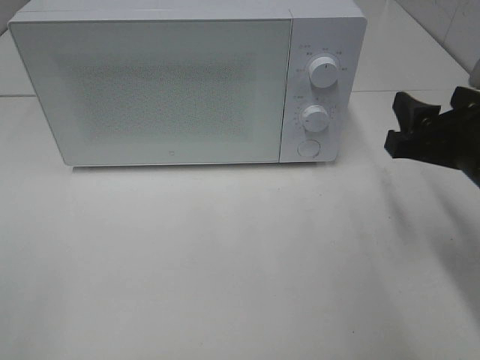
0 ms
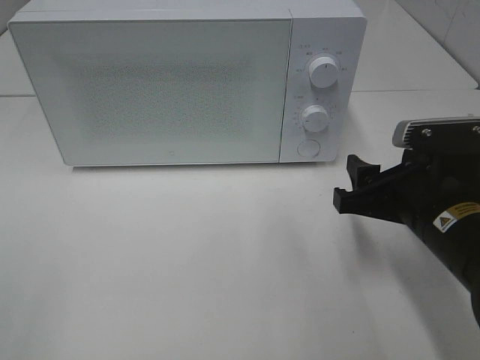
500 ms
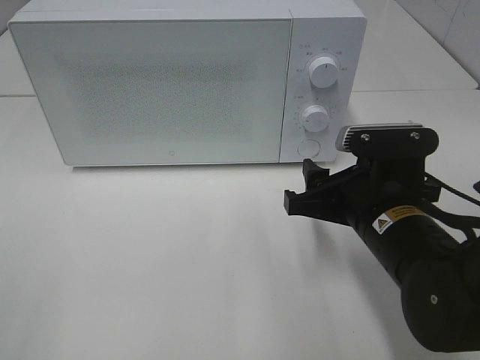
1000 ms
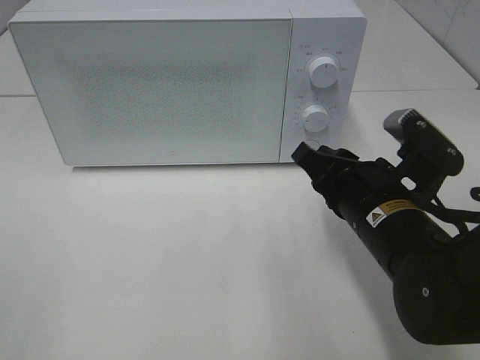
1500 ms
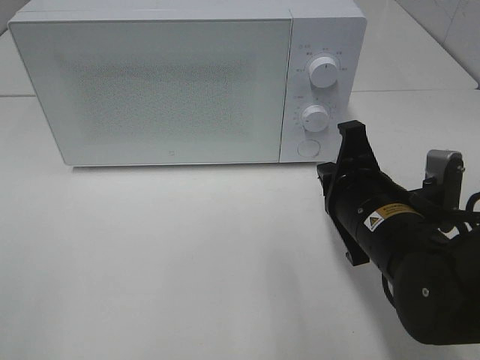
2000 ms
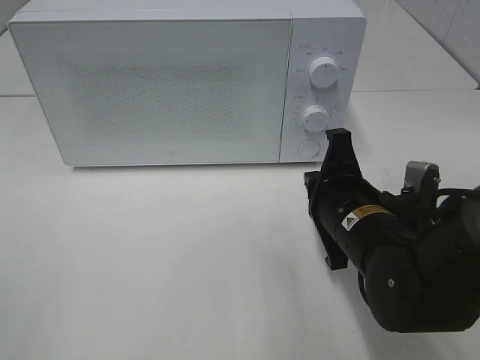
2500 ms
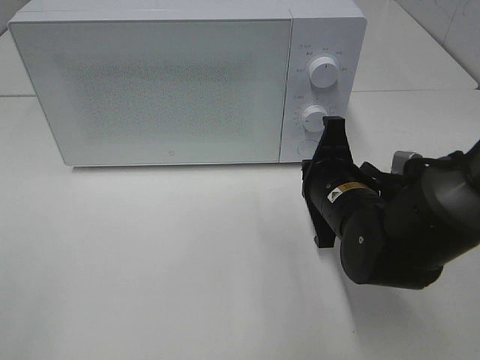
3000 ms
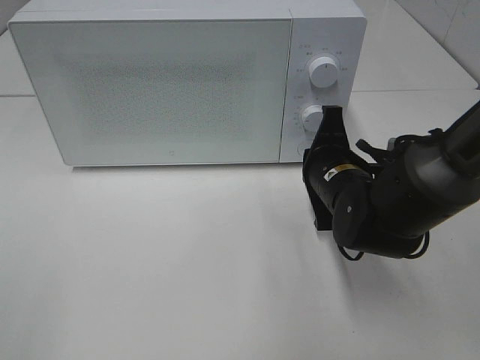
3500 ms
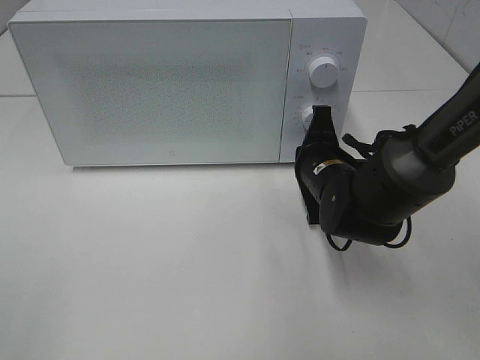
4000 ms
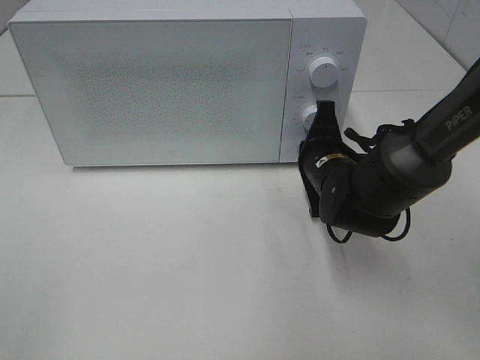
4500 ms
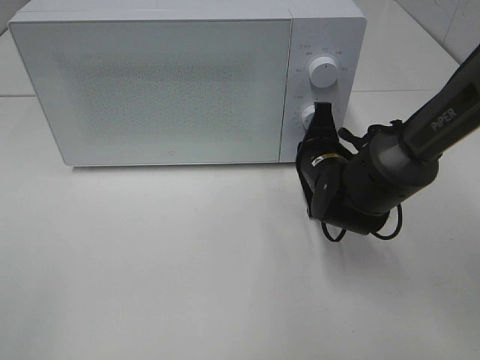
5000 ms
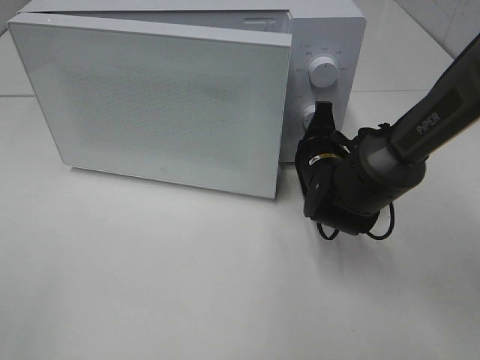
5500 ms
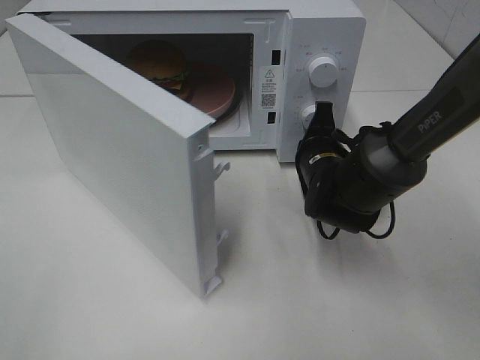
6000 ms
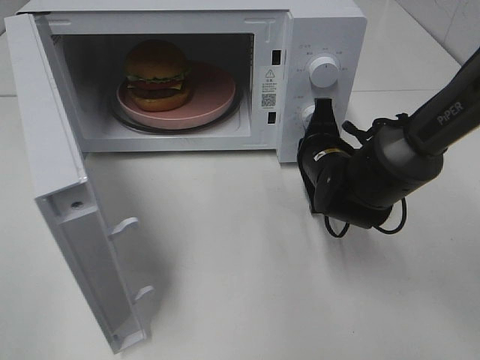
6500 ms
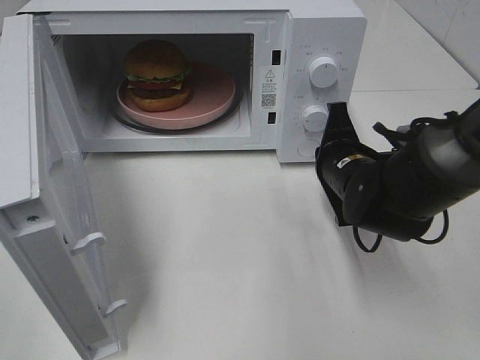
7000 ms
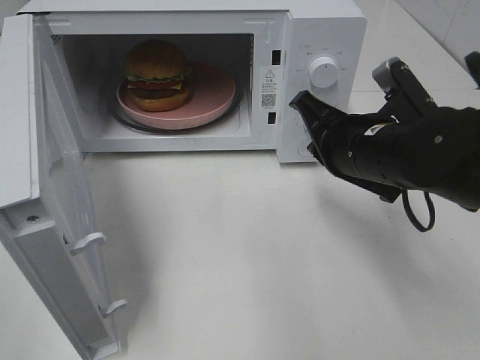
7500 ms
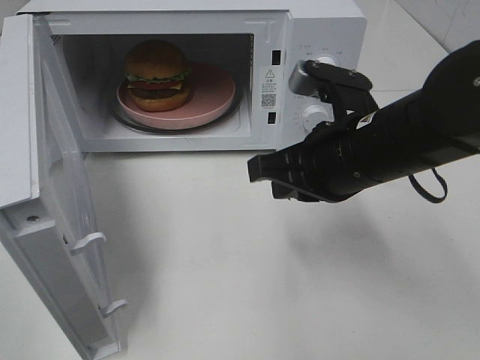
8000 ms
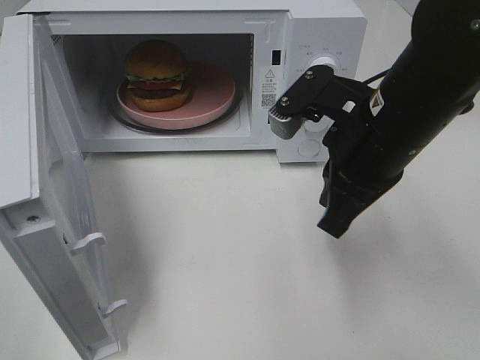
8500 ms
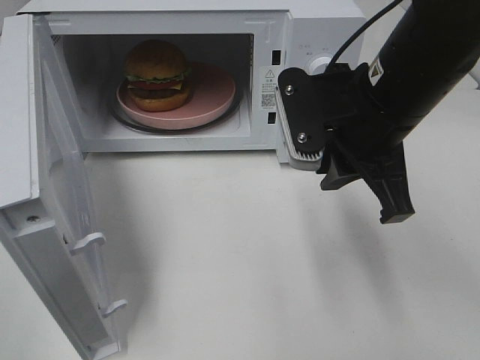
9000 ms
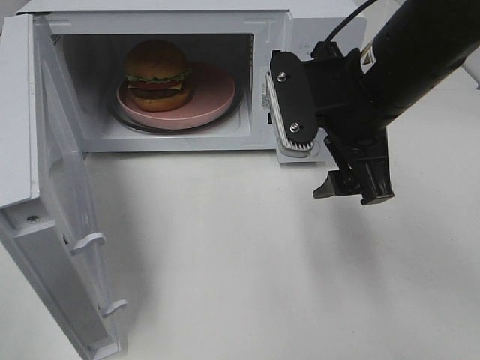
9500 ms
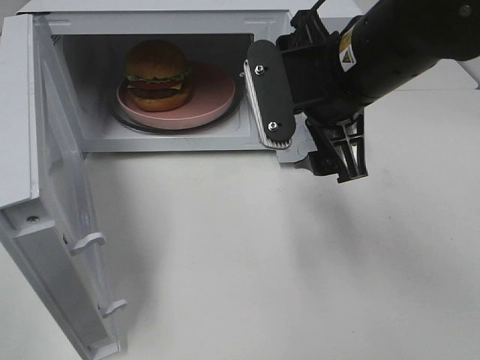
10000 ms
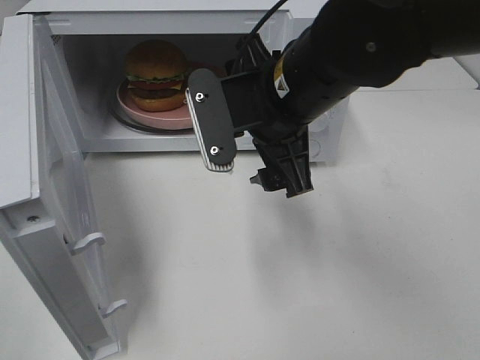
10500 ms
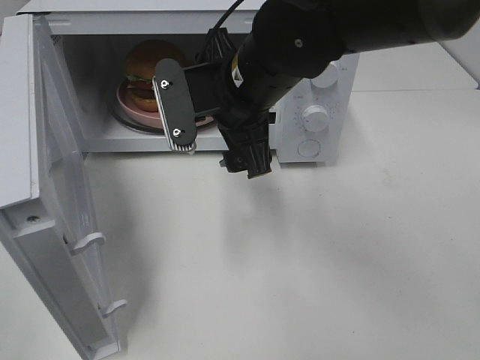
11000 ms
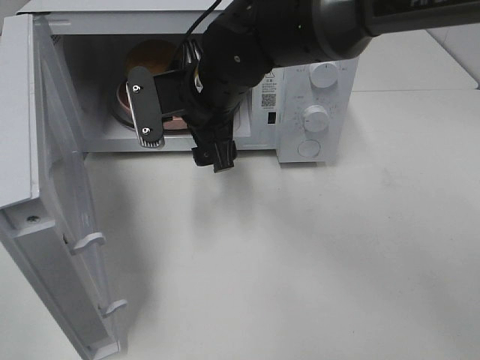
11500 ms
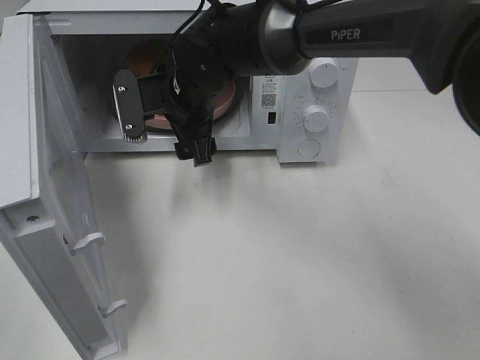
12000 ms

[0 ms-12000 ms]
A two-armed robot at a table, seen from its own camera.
Task of the whole recording: Heat the burger.
Step, 0 ms to 6500 ms: Right hand: press the switch.
0 ms to 2000 ms: The right gripper goes some 10 cm to the left and downward, and closes its fingers.
2000 ms to 4000 ms: The right gripper travels forward by some 10 cm.
6000 ms to 8000 ms: The right gripper shifts roughly 15 cm upward and backward.
8000 ms to 10000 ms: The right gripper is displaced upward by approximately 5 cm, and opens.
10000 ms to 12000 ms: The right gripper is displaced to the left, forward and downward by approximately 20 cm.

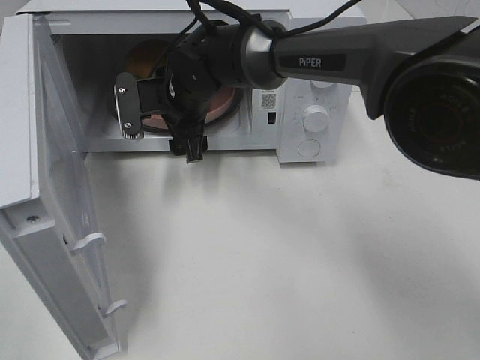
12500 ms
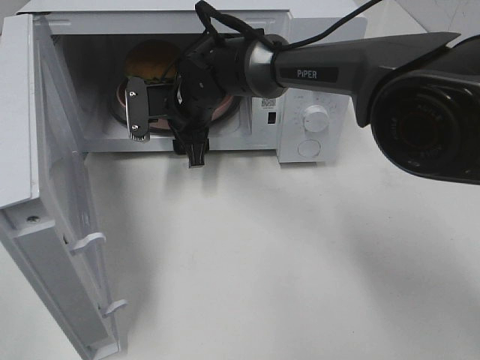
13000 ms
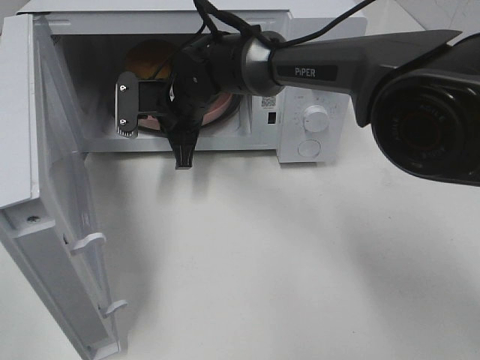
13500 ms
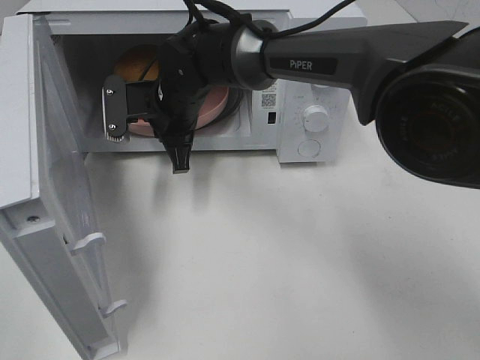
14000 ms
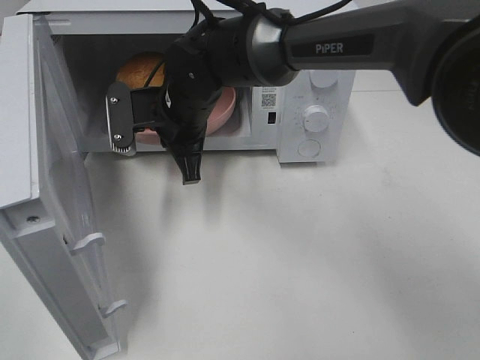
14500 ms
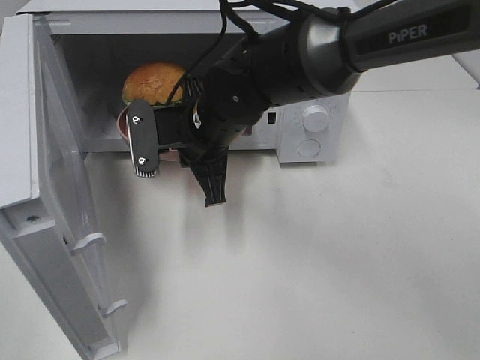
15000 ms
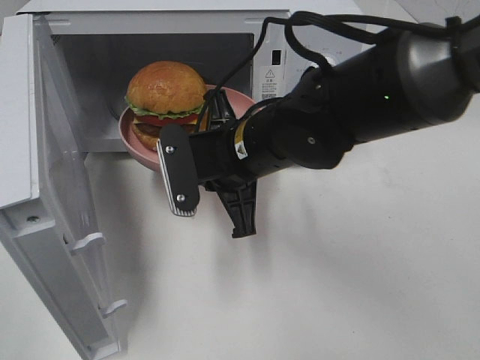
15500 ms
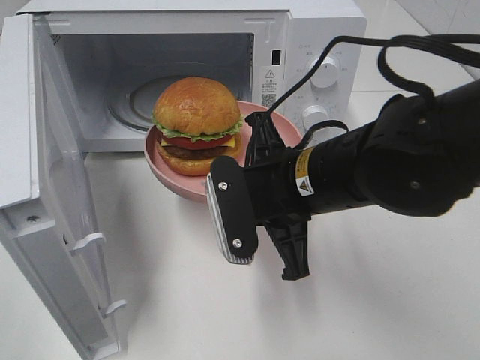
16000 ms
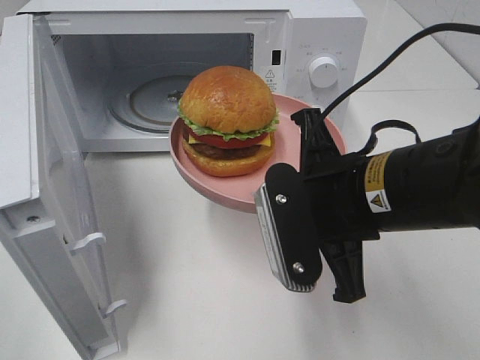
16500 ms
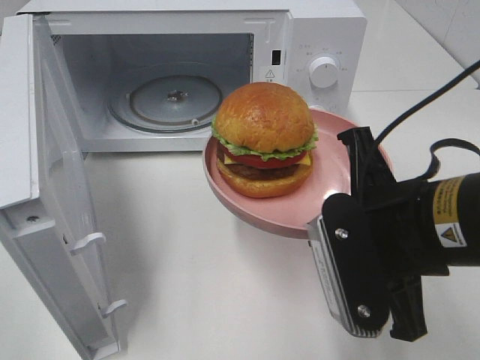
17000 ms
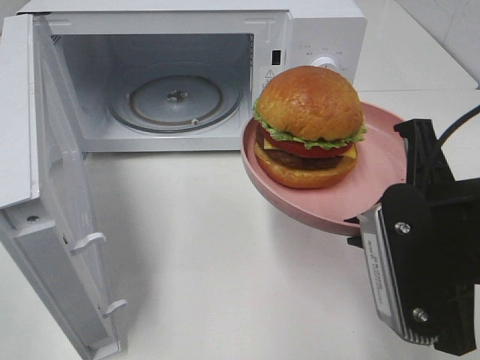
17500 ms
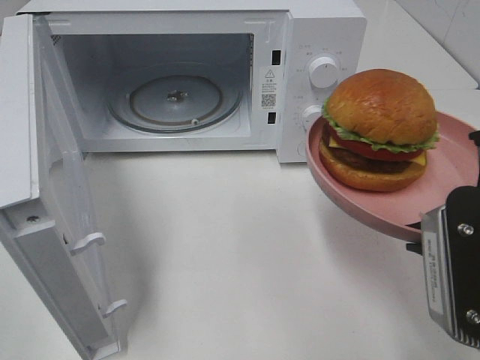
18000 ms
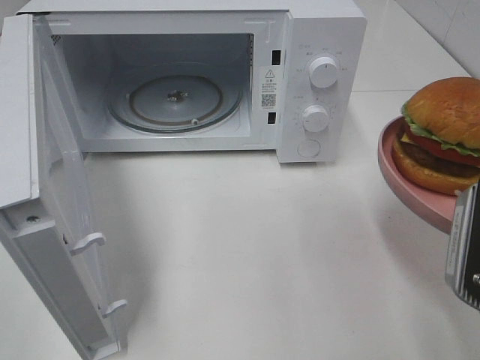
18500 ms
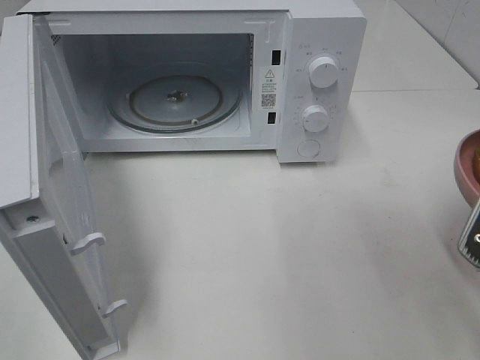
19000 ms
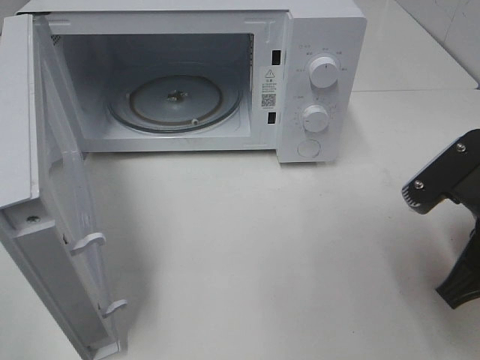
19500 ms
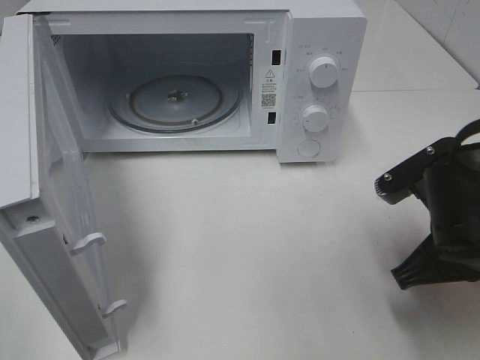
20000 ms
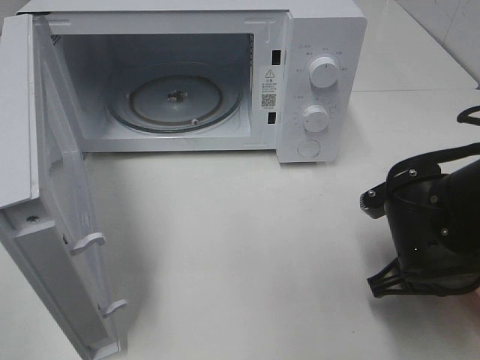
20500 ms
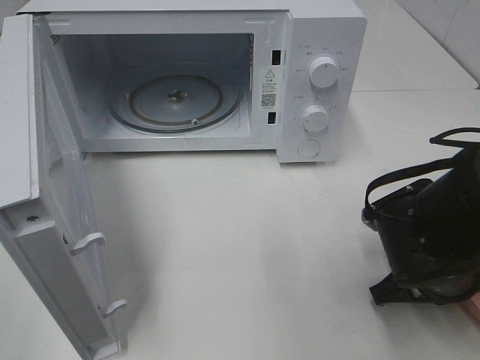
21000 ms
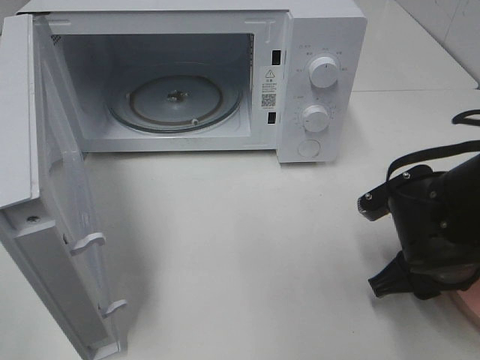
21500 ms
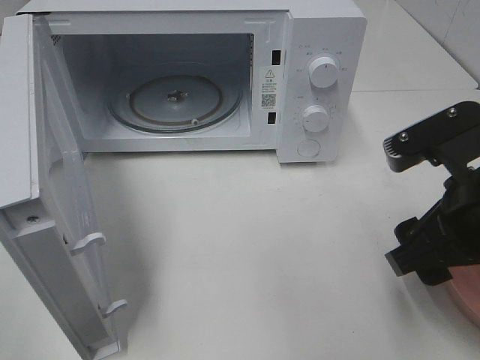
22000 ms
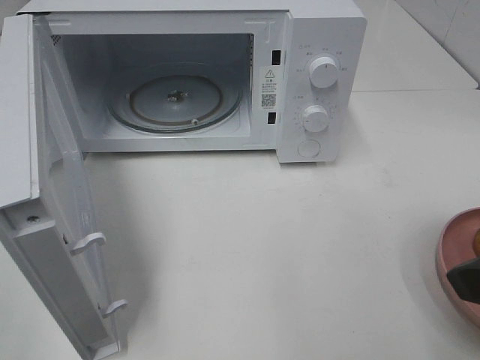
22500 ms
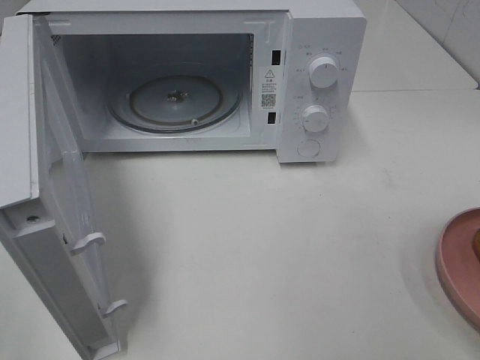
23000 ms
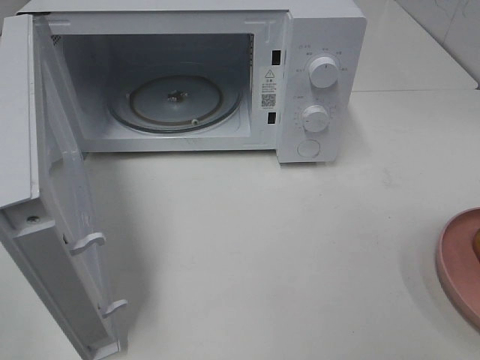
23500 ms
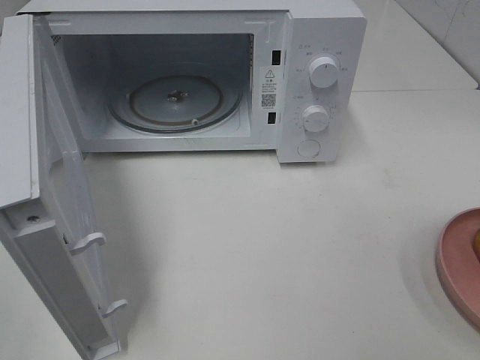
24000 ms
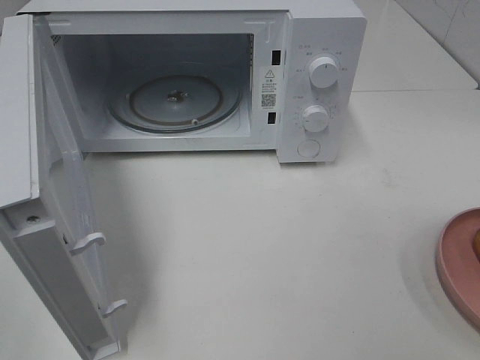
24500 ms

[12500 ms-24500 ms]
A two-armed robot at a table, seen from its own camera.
Task of the whole recording: Heat the burger.
Step, 14000 ms to 21000 ms: Right hand: place the plate on the table.
12500 ms to 14500 ms: The right gripper closes up.
14500 ms to 16500 ms: The right gripper moves backward and to the right, approximately 25 cm.
16500 ms to 18500 ms: The right gripper travels to the right and backward by about 15 cm.
18500 ms to 20500 ms: The right gripper is displaced downward and forward by approximately 15 cm.
20500 ms to 22500 ms: The right gripper heads upward and backward, covering approximately 20 cm, and opens.
22500 ms to 24500 ms: The right gripper heads backward and to the right, covering roughly 15 cm.

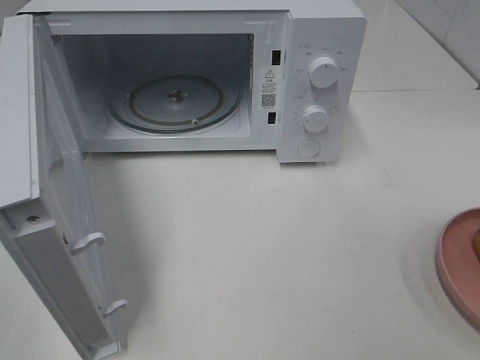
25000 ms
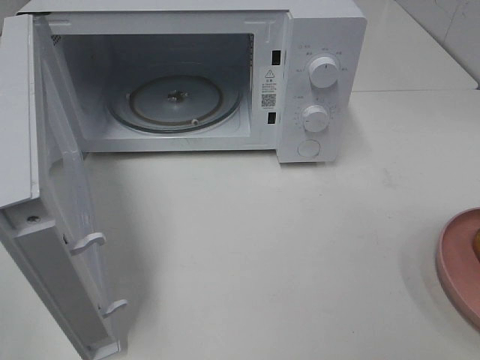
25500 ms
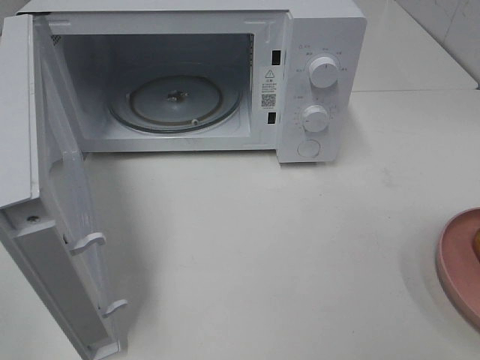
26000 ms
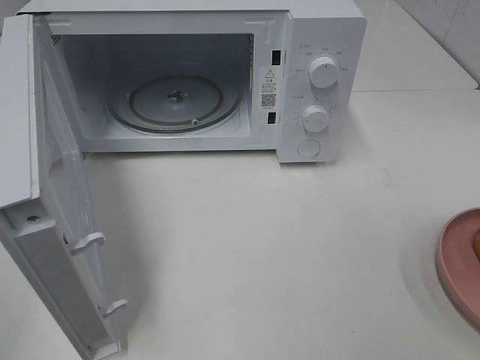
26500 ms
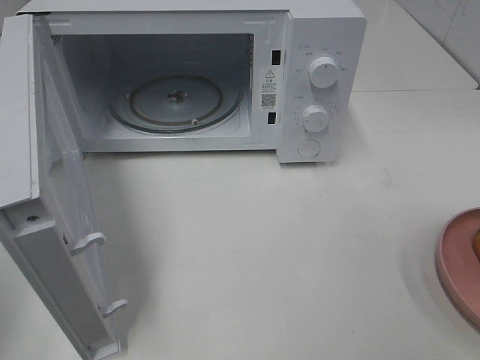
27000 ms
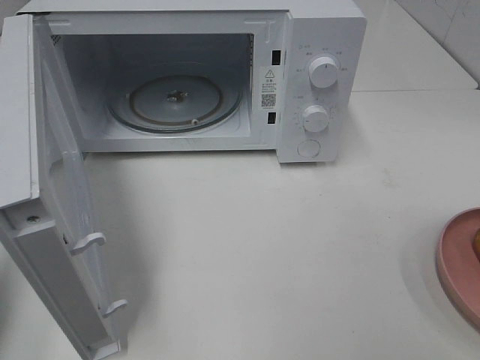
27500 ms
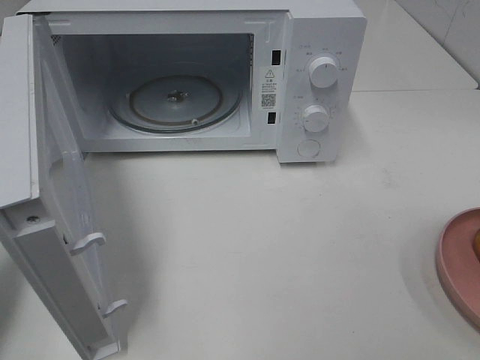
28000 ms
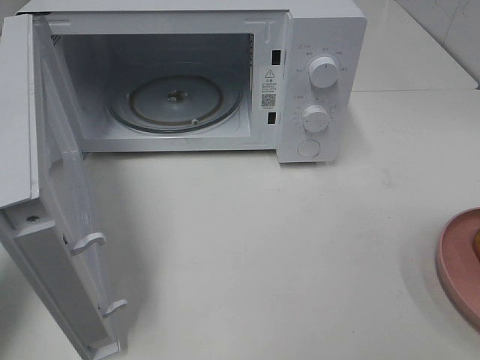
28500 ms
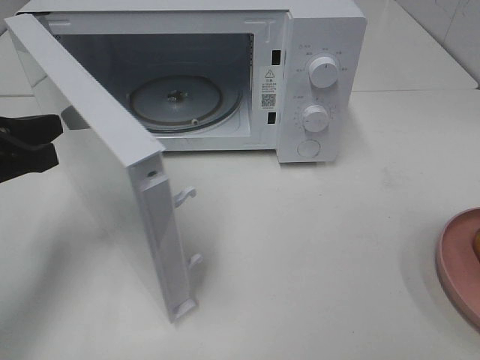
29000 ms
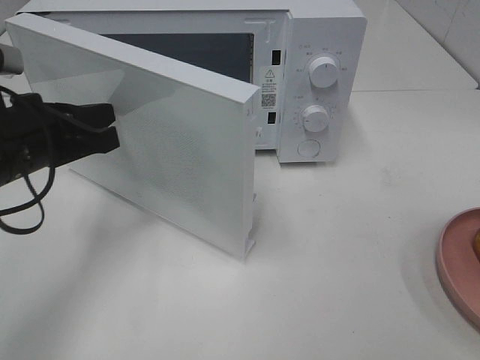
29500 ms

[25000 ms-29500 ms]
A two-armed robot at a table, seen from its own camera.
Task of the whole recording: Heat the burger.
27000 ms to 29500 ms: The left gripper heads forward, to the right and downward, covering roughly 25 cm.
